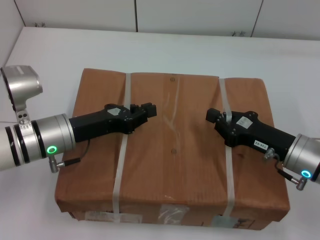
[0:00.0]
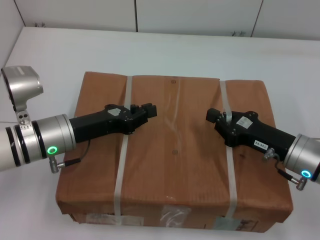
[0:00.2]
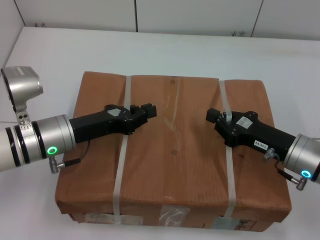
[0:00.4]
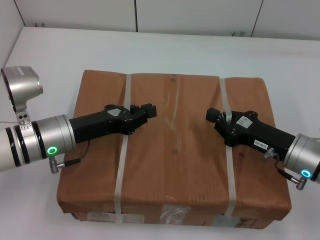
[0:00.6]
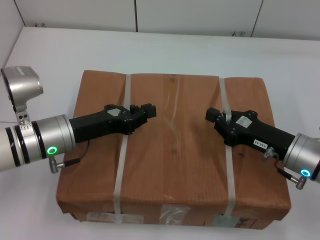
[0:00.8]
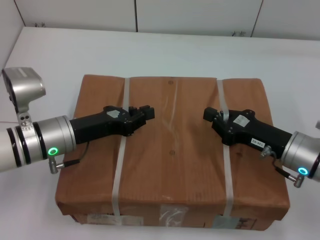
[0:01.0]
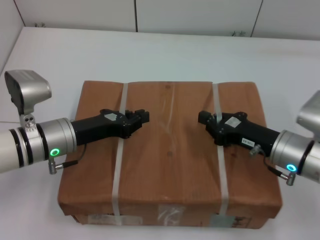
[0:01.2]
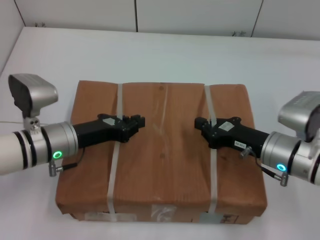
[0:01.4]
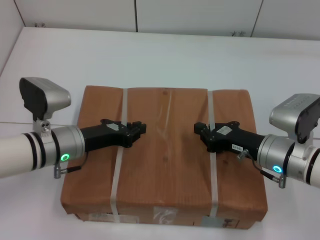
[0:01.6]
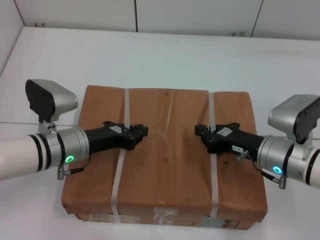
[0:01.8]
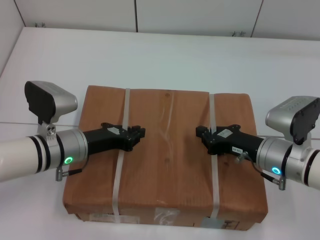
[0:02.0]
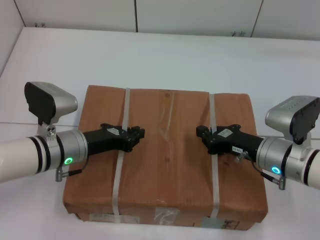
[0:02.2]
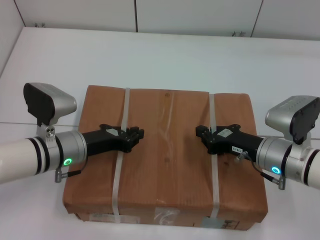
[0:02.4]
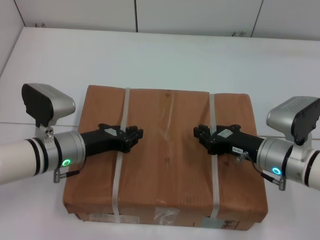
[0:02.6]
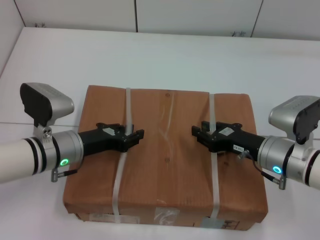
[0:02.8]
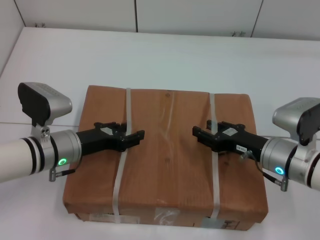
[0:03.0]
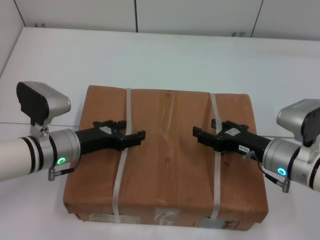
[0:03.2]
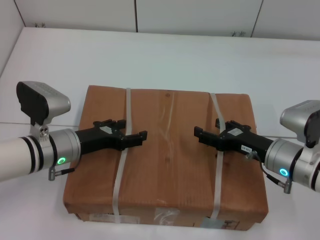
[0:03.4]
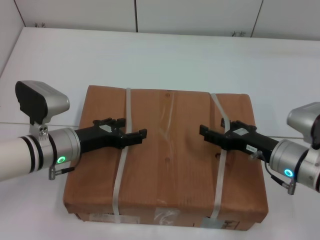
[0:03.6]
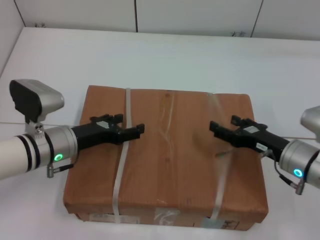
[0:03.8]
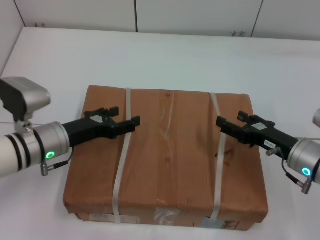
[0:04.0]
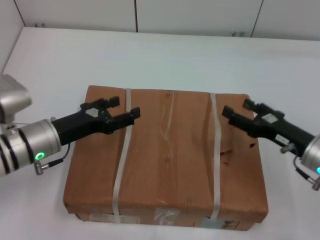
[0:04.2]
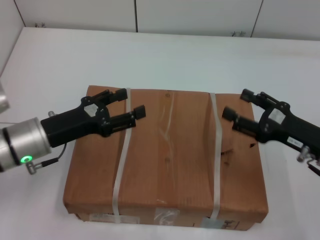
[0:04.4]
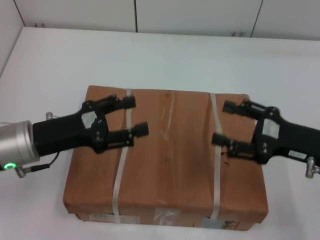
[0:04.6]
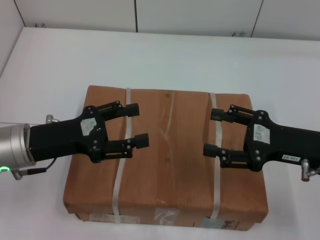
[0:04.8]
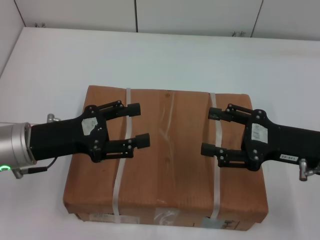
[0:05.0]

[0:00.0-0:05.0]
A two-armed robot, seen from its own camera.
Task of the whole recording: place the box on the table with both arms.
Step, 0:00.0 to 0:02.0: Place the box on the table with left gripper.
Step, 0:00.0 to 0:02.0: Place the box on the table with right gripper.
Step, 0:02.2 to 0:03.8: Loosen the box on the table with left gripper.
Step, 0:02.2 to 0:03.8: Loosen the box on the table with right gripper.
0:01.6 to 0:03.4: The right gripper opens up; the left gripper opens.
0:03.4 to 0:05.0: Both grippers move upward, roughly 10 cm.
